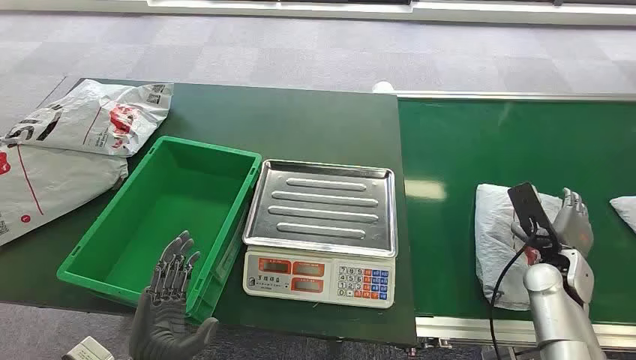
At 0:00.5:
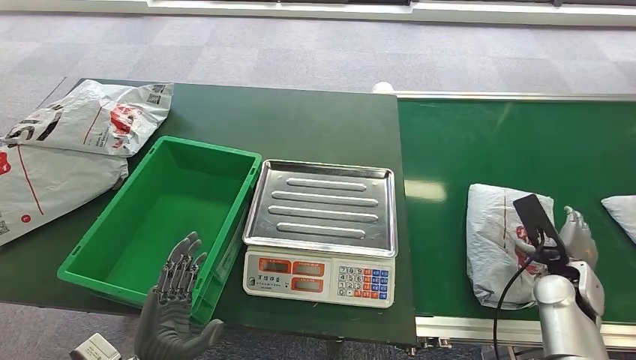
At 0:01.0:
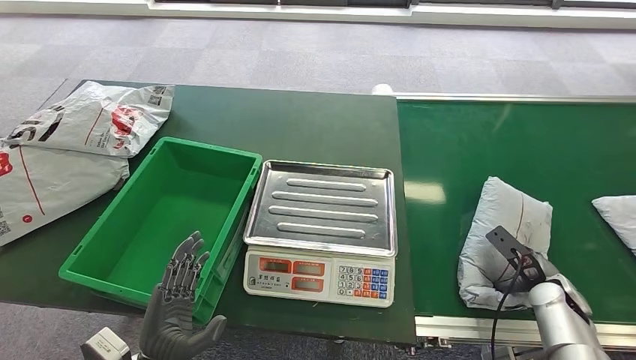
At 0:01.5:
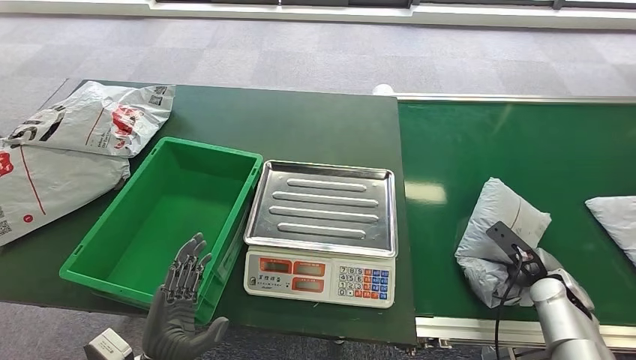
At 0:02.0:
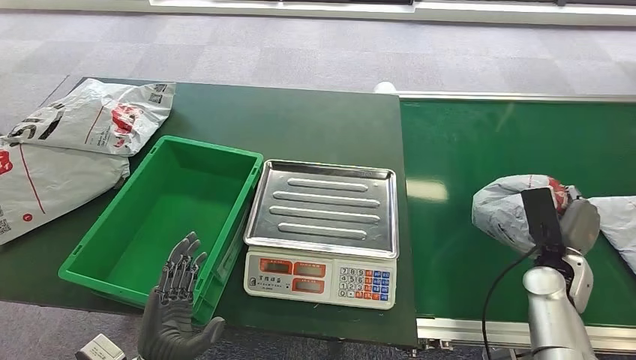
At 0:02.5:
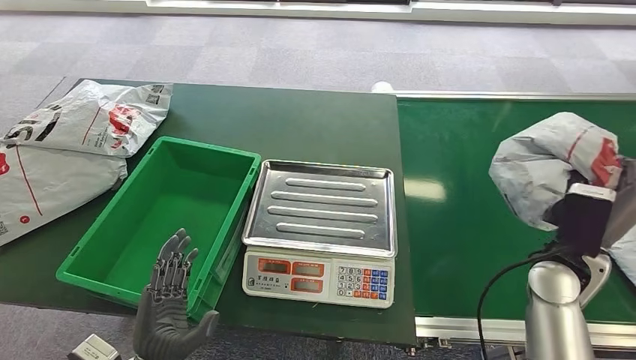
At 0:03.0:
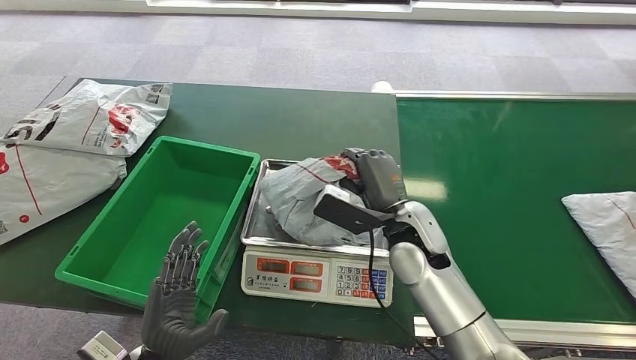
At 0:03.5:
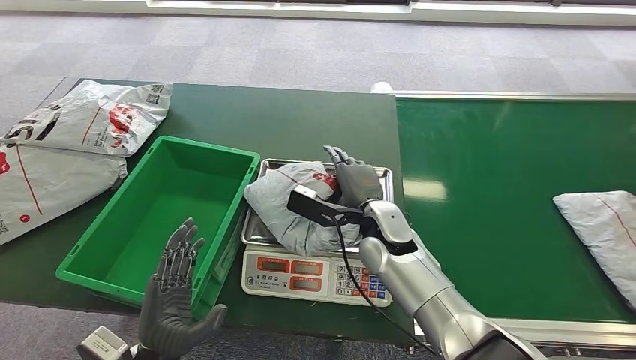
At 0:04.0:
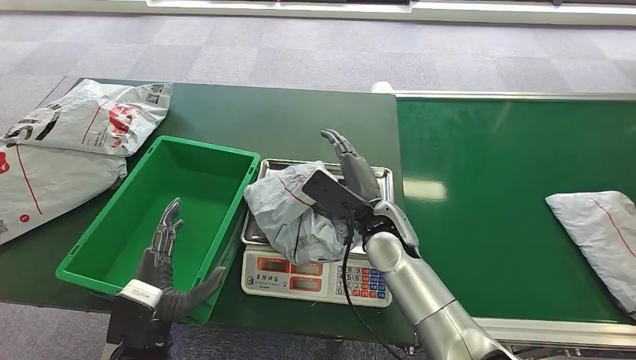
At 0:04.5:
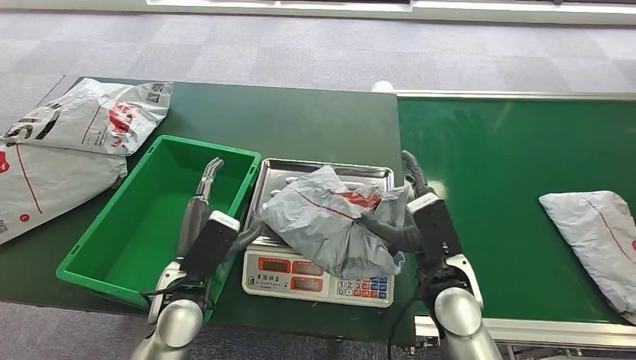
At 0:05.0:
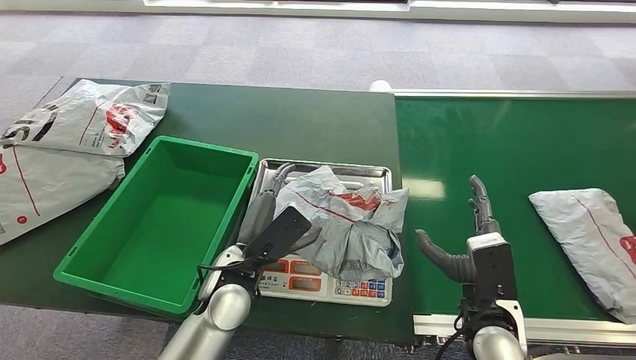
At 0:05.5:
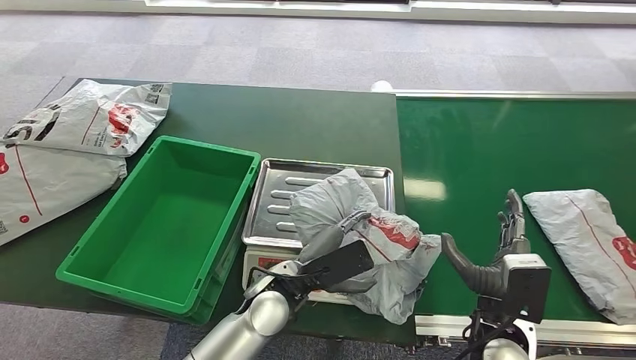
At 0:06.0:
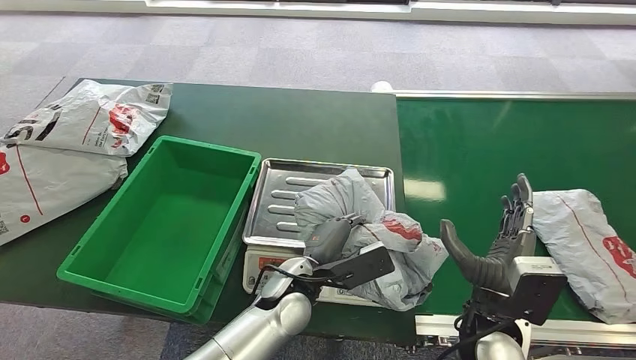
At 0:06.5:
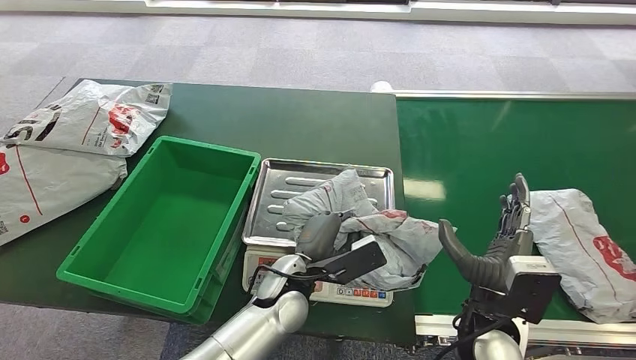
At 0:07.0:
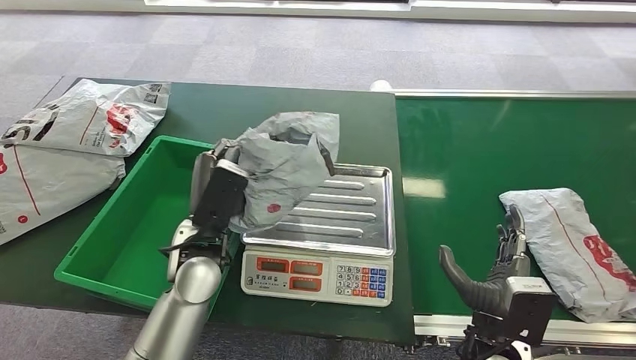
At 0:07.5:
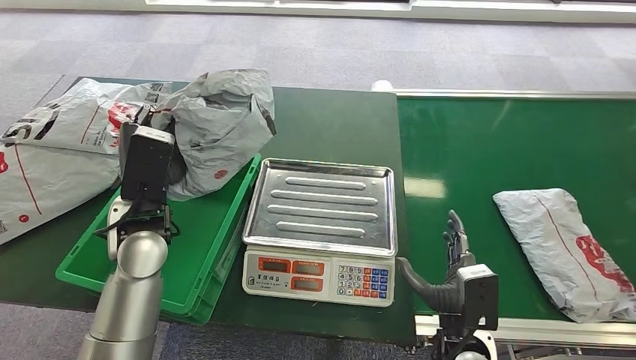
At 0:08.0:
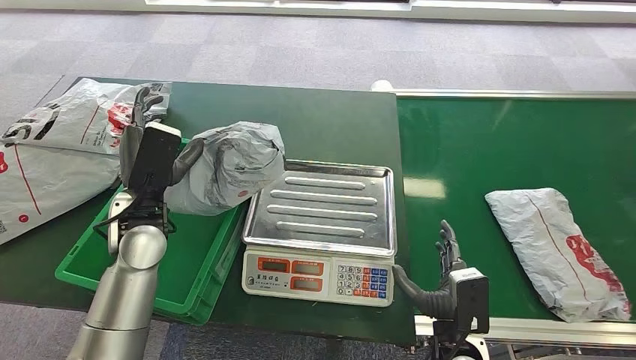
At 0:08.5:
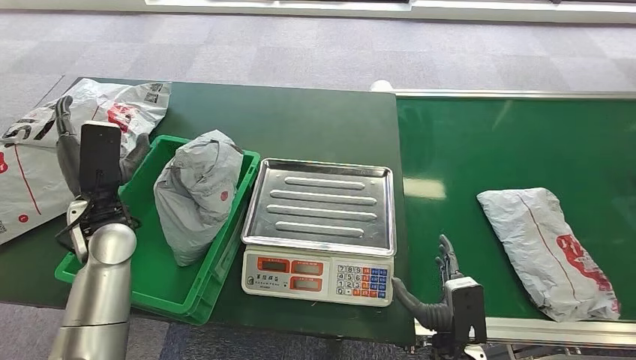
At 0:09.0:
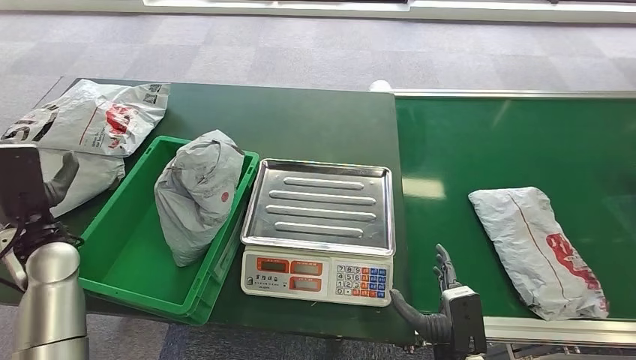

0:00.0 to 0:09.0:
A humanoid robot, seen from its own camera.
Step, 0:00.0 to 0:03.0: Pick up the package from the conveyor belt.
Step, 0:03.5 to 0:05.0: Place the package onto the inbound machine.
Step, 0:05.5 to 0:07.5: Pick up the package from the inbound machine.
Step, 0:08.0 to 0:09.0: Place the package into the parcel locker.

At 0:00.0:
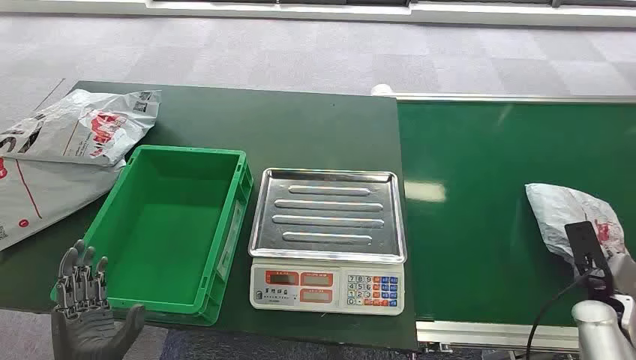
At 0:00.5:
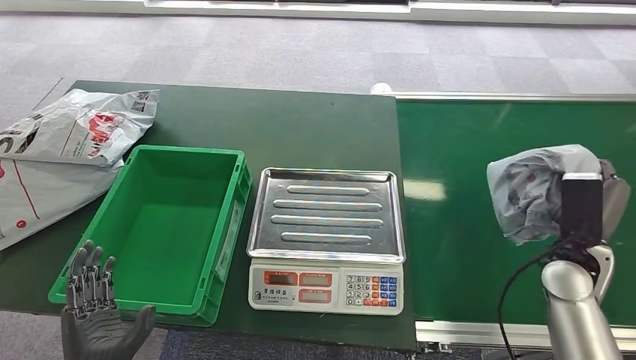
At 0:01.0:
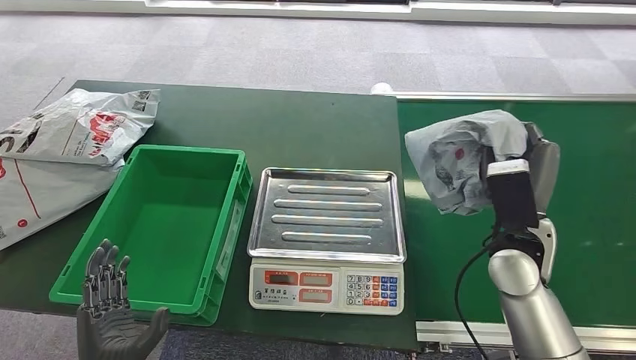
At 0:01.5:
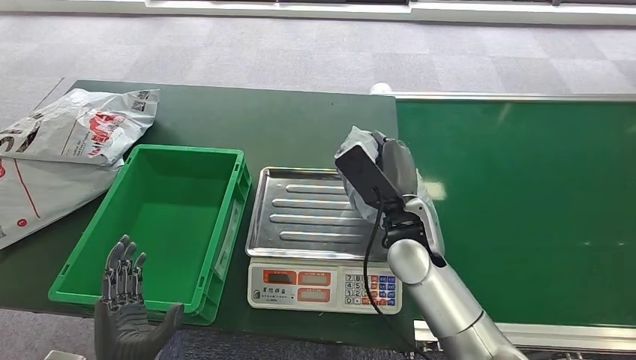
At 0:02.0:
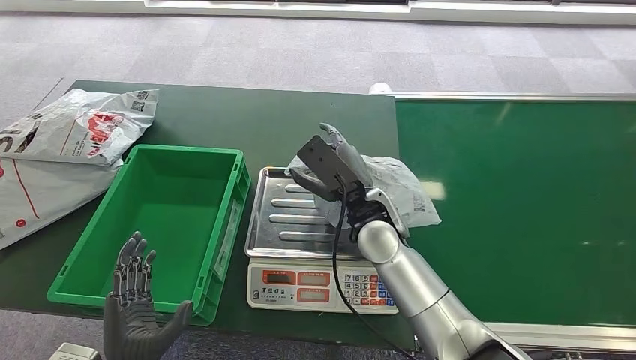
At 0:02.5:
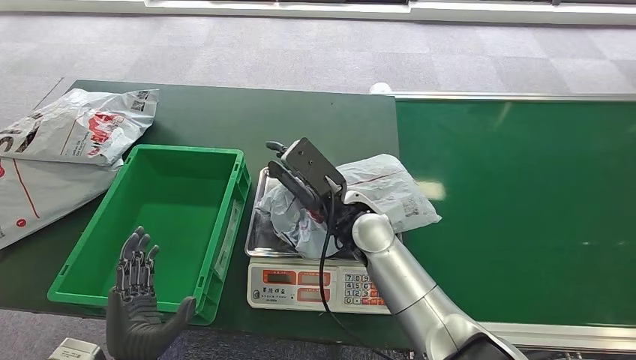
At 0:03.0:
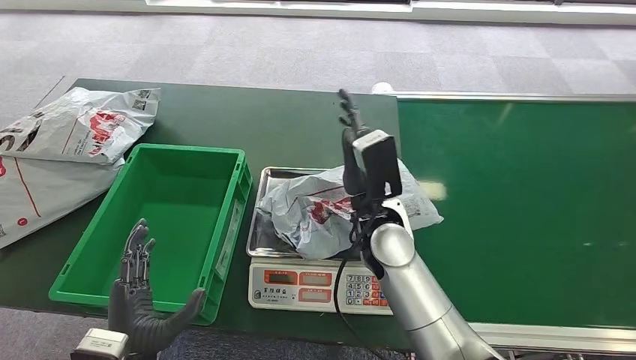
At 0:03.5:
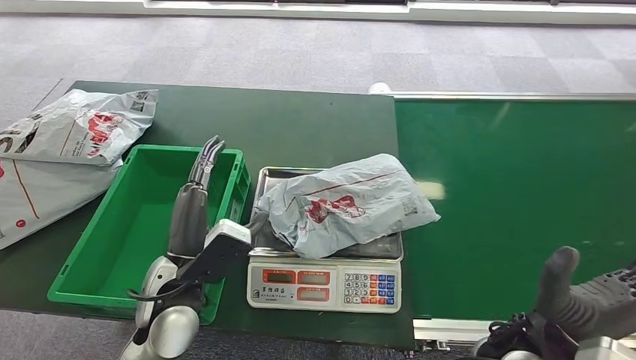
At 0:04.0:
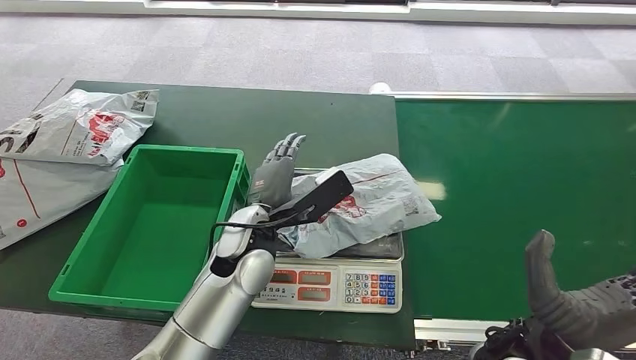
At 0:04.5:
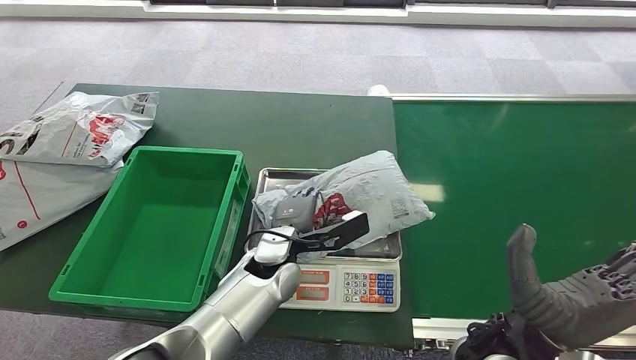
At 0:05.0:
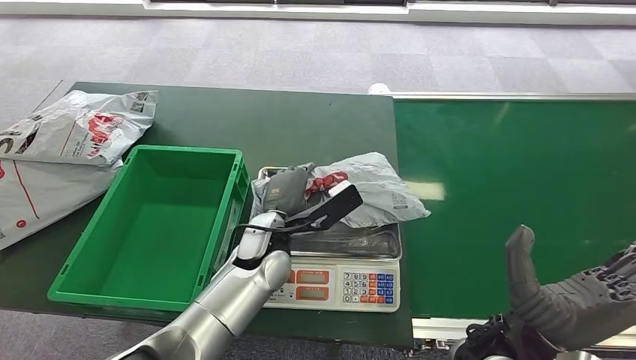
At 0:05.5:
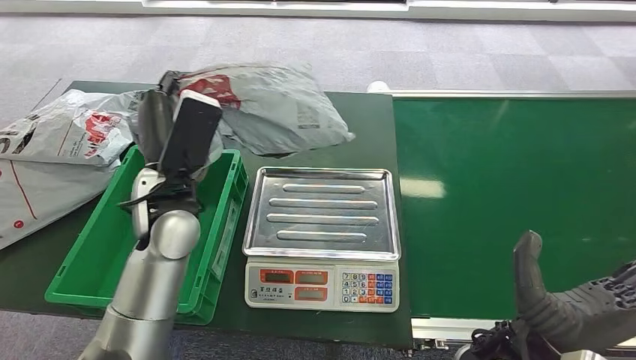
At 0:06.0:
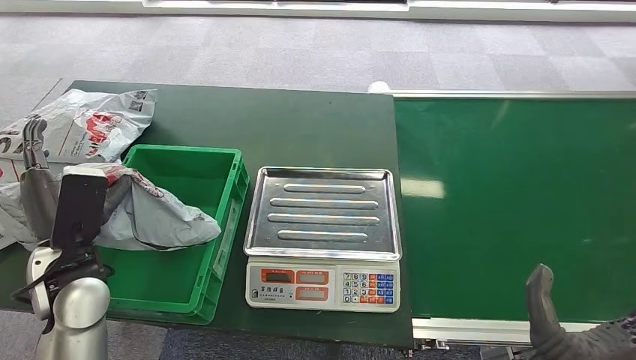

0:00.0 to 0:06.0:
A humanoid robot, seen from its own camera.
Step, 0:00.0 to 0:00.5: Pick up the package from the conveyor belt.
Step, 0:01.5 to 0:02.5: Place the package onto the inbound machine.
Step, 0:04.5 to 0:05.0: Pick up the package from the inbound machine.
Step, 0:05.5 to 0:06.0: Place the package into the parcel locker.
0:02.0 to 0:04.0: The right hand goes approximately 25 cm backward and to the right. The left hand moves forward, to the right and upward, some 30 cm.
